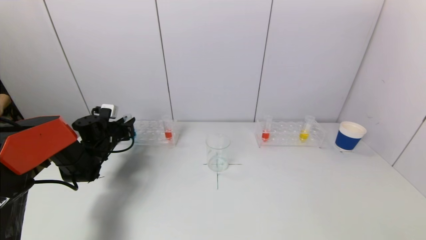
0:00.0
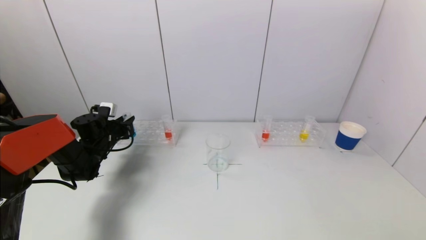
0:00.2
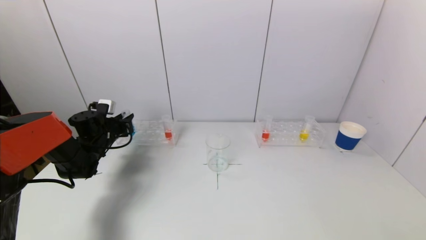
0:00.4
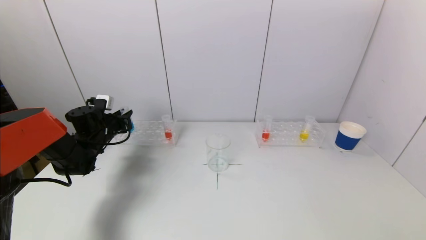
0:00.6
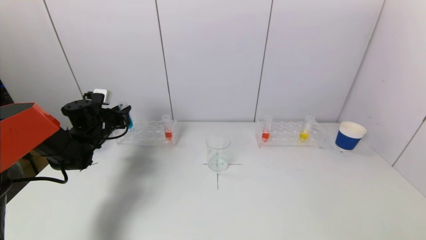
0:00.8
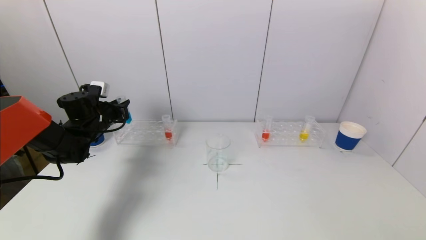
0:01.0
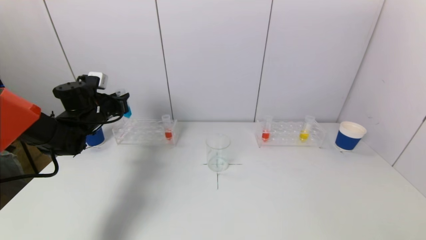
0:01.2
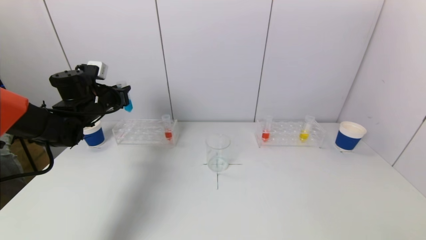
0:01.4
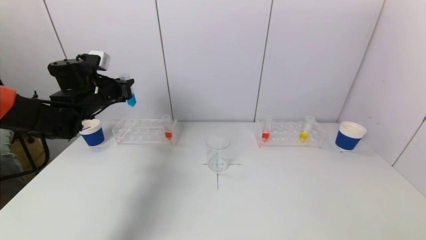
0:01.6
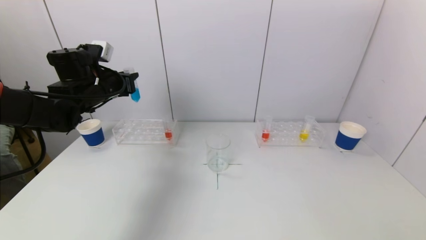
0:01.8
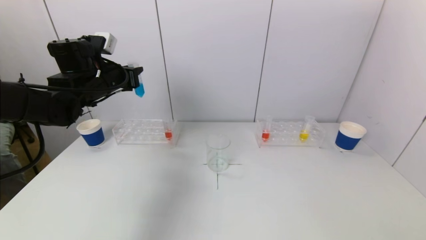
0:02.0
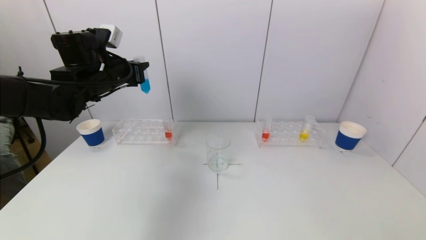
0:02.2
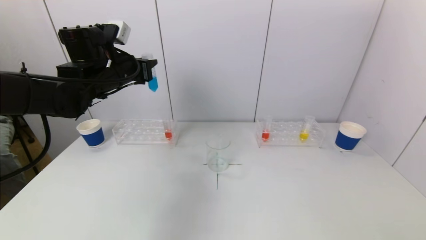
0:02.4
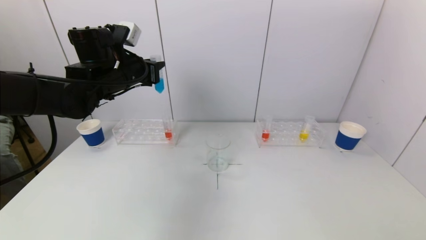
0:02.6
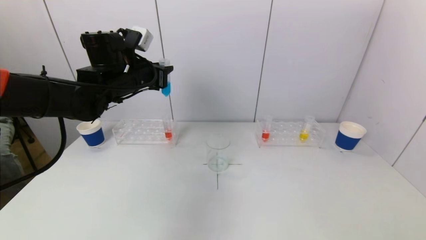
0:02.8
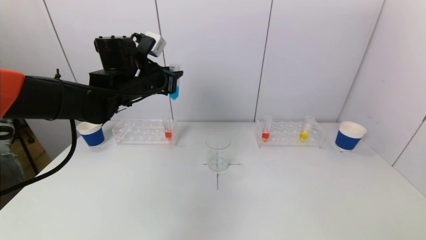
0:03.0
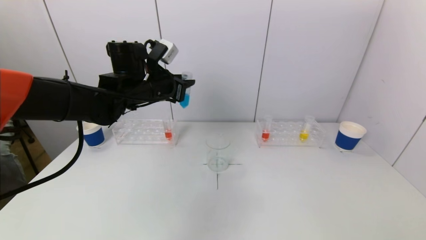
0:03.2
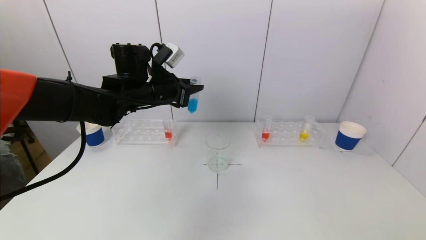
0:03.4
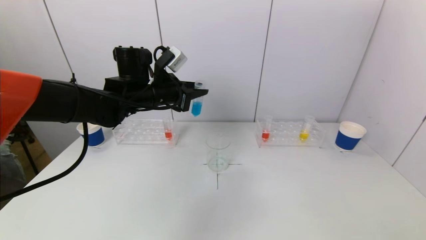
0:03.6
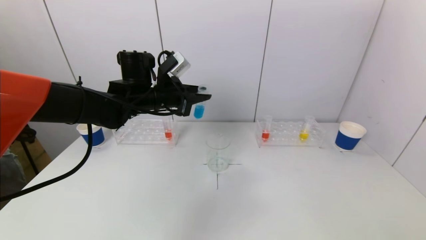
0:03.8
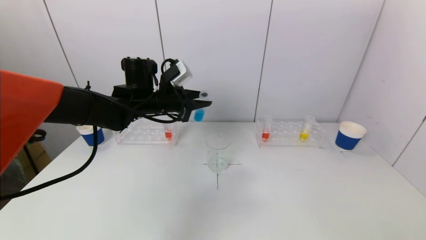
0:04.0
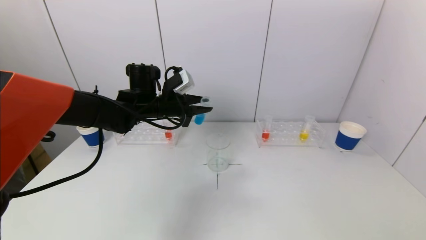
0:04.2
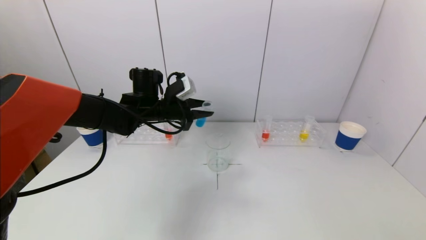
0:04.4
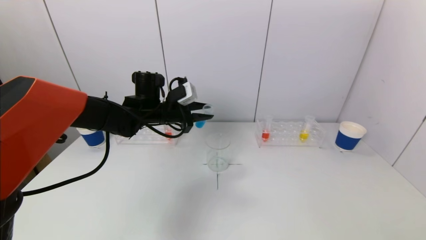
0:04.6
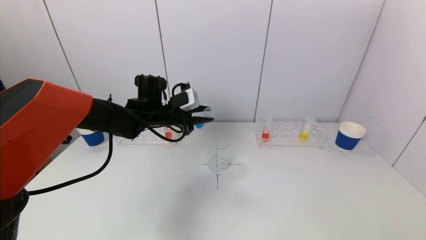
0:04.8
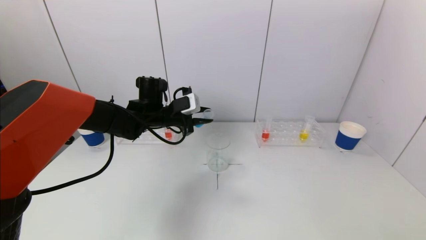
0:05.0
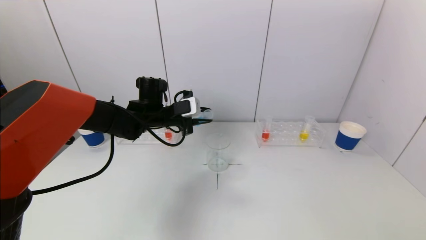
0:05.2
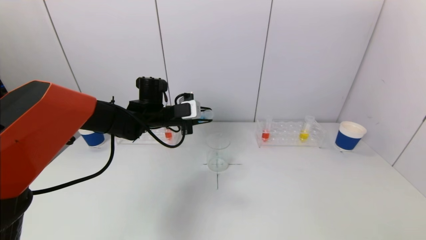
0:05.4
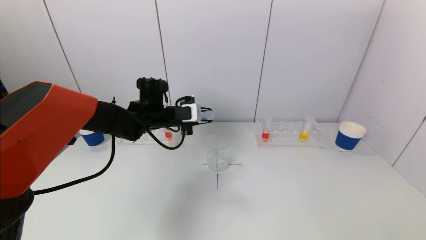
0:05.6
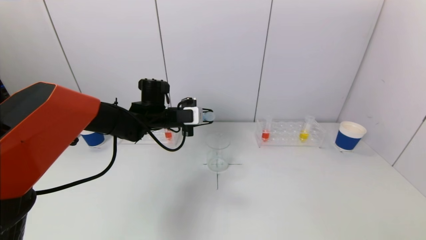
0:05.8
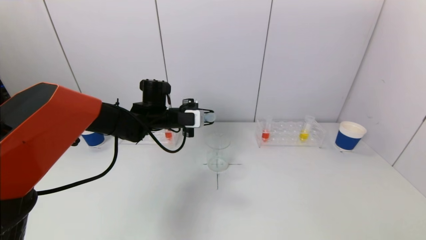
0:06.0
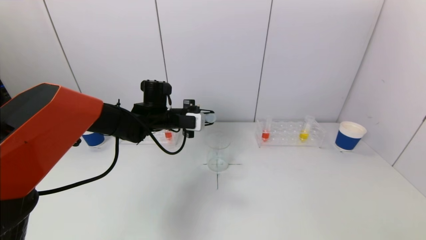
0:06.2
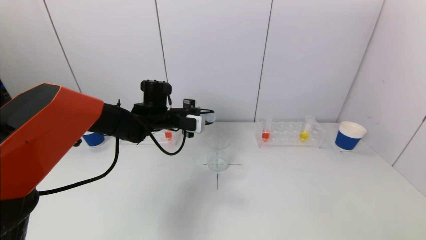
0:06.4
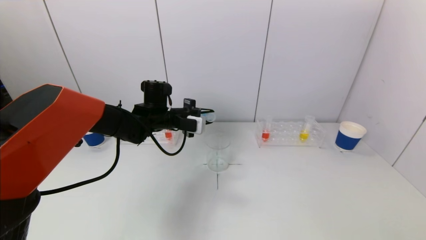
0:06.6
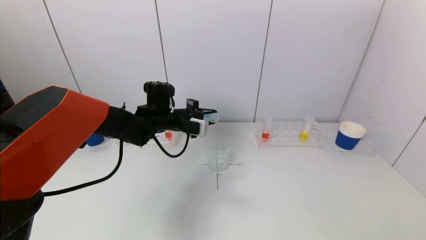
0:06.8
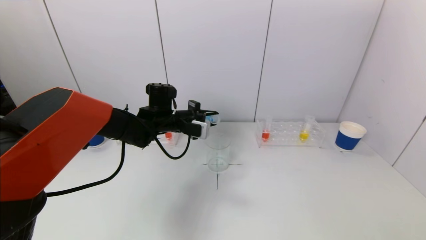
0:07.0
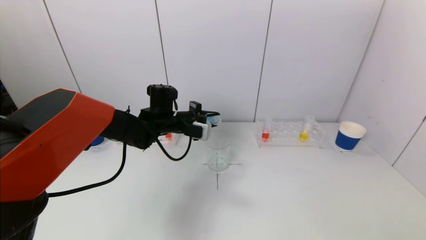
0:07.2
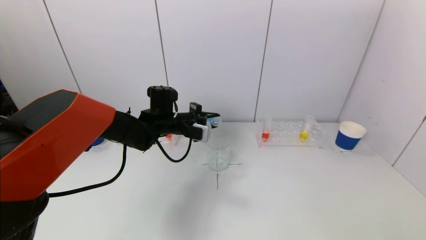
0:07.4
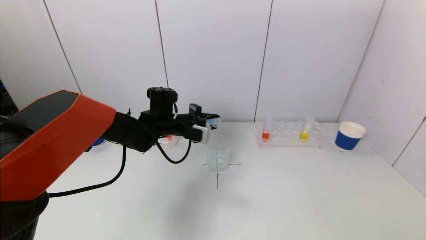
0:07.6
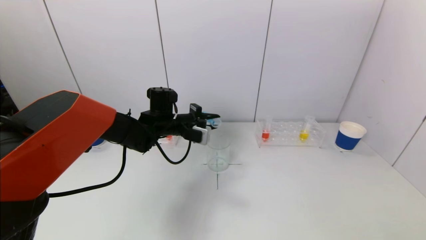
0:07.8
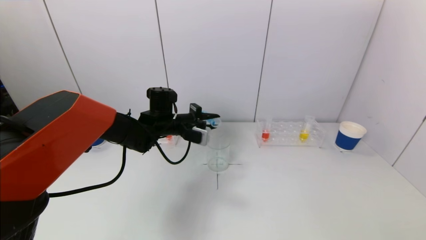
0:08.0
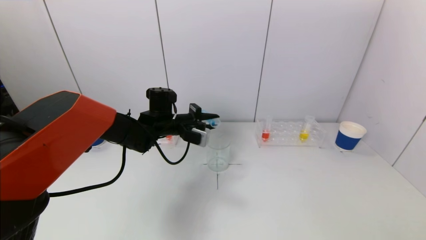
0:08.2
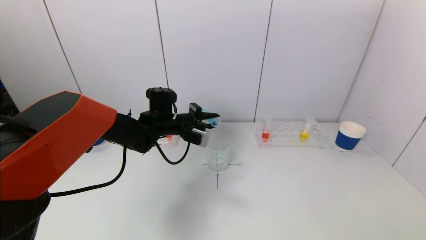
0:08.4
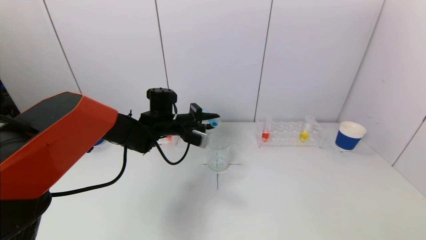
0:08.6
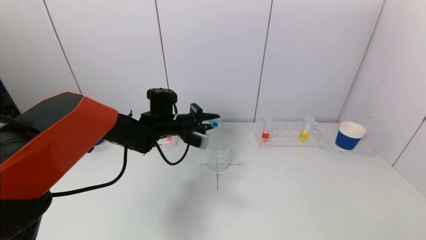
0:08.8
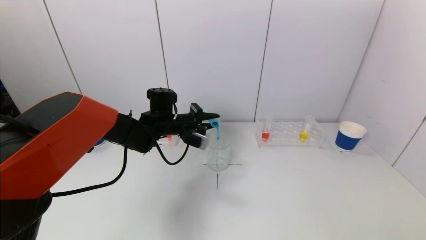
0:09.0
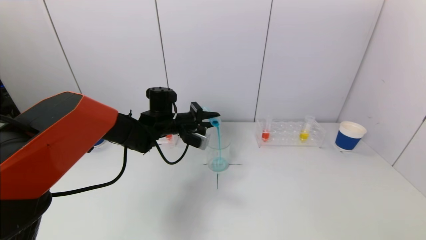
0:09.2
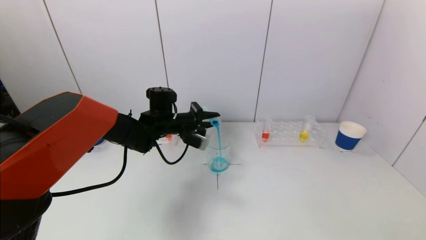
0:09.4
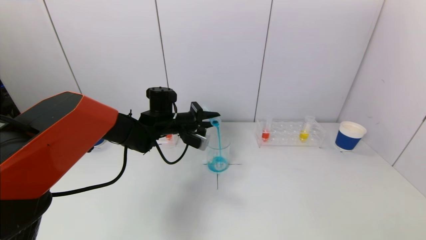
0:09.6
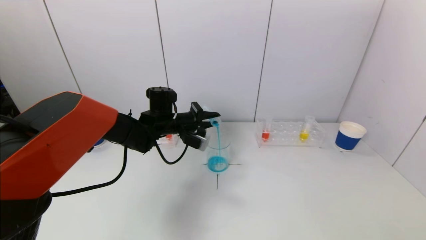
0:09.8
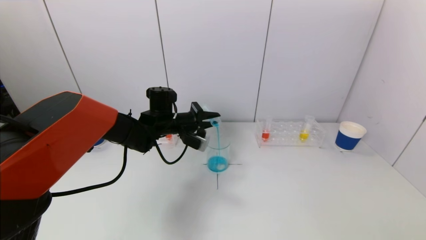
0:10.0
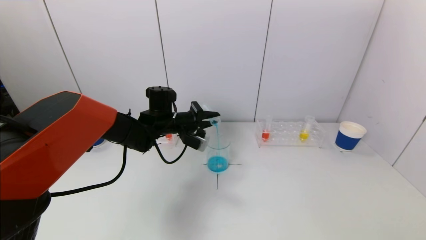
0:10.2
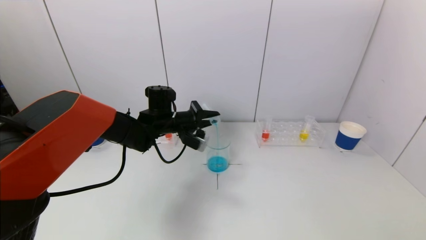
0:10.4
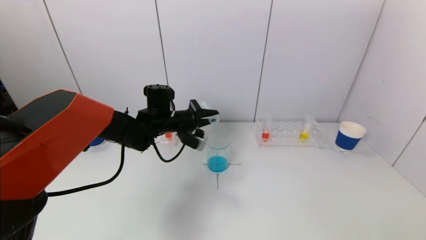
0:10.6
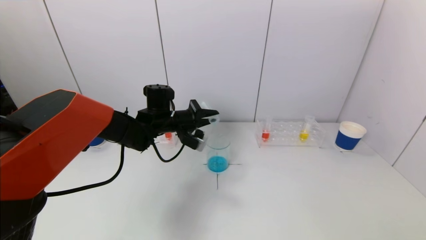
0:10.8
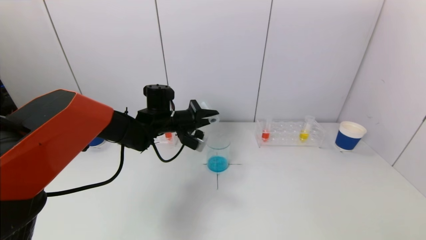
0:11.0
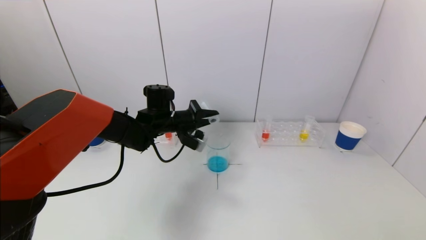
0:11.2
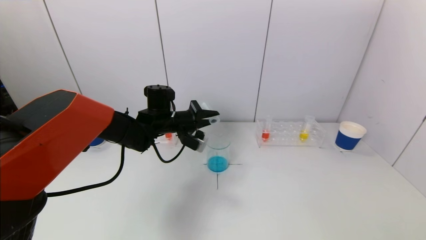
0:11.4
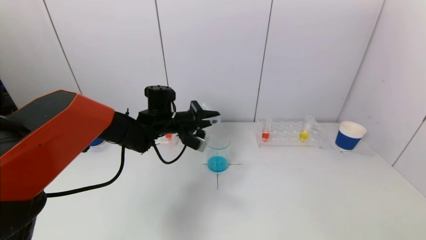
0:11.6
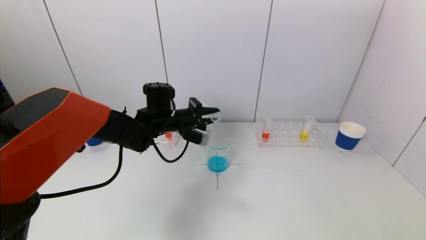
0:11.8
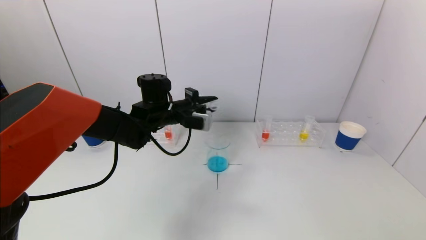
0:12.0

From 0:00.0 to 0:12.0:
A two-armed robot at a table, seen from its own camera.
Task of the whole recording: pick up a test tube with pigment on left test tube rack and a test tube with pigment on right test tube rack by grippers and pour them into the beaker.
Step, from 0:00.0 to 0:11.4: Pour the blue reagent into the graduated cylinder with the left gripper.
From 0:00.0 to 0:01.6: The left gripper heads upward, covering about 15 cm.
From 0:01.6 to 0:03.0: The left gripper is displaced to the right by approximately 10 cm.
From 0:03.0 to 0:04.4: The left gripper heads downward, covering roughly 5 cm.
From 0:06.0 to 0:07.6: The grippers make only small movements.
From 0:07.6 to 0:09.0: The grippers move only a little.
From 0:09.0 to 0:12.0: The grippers stay close to where they were, moving slightly.

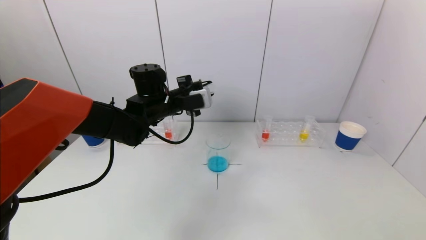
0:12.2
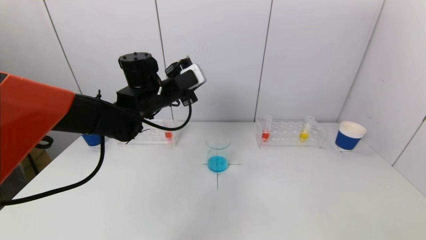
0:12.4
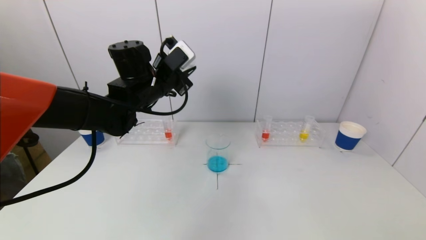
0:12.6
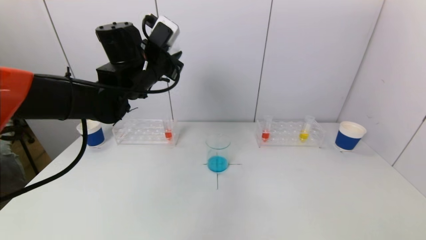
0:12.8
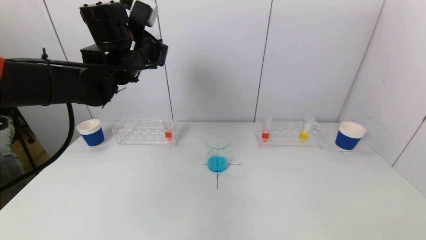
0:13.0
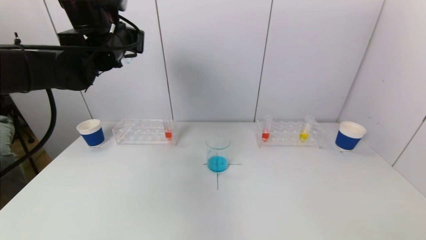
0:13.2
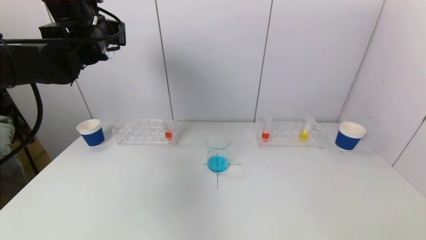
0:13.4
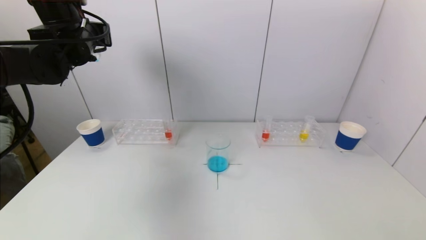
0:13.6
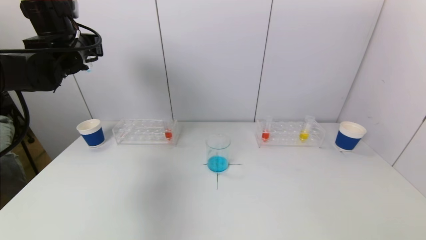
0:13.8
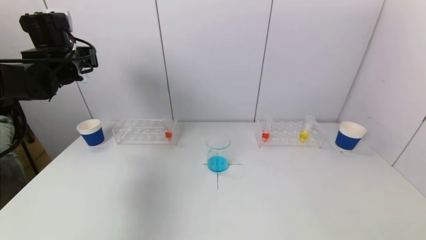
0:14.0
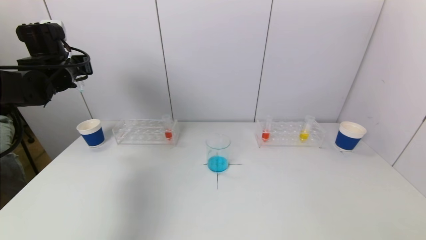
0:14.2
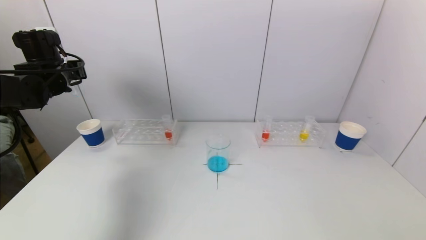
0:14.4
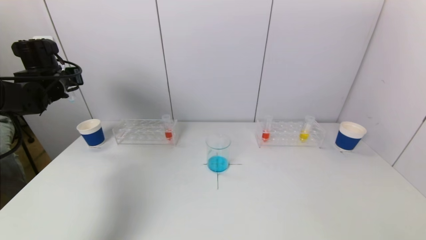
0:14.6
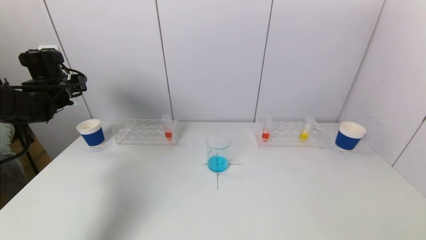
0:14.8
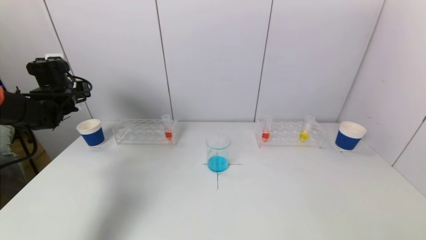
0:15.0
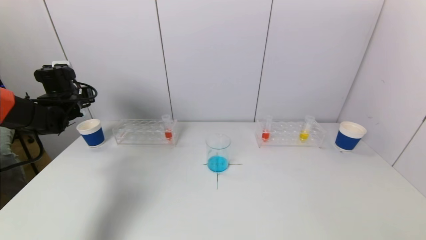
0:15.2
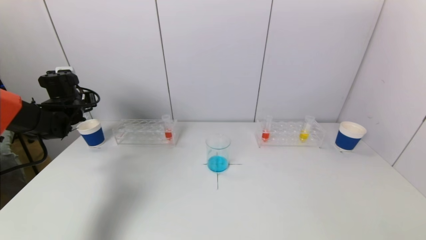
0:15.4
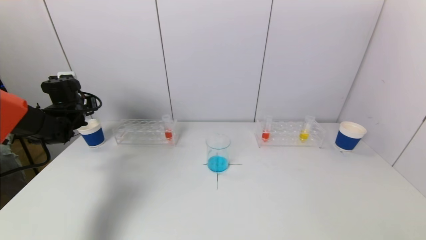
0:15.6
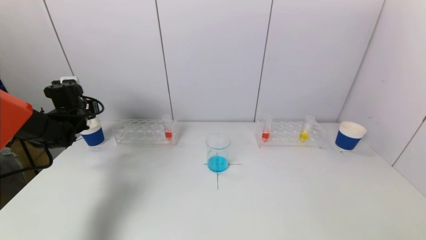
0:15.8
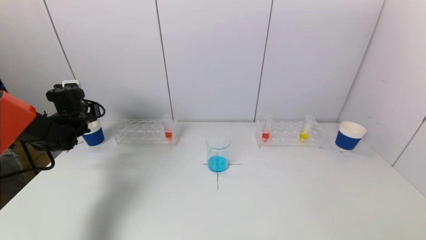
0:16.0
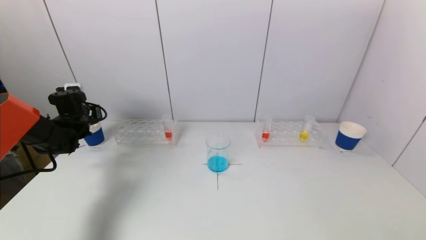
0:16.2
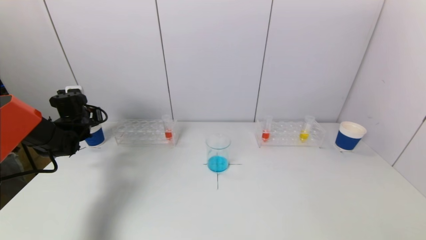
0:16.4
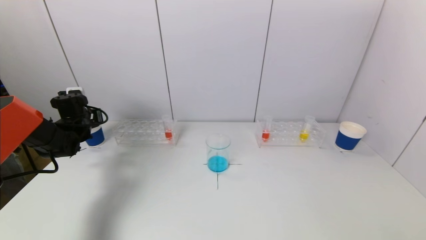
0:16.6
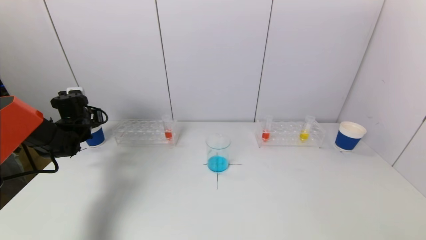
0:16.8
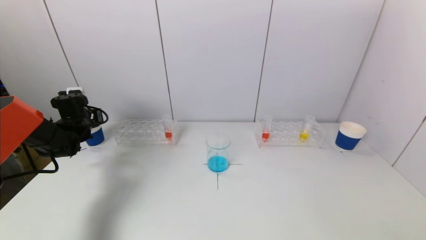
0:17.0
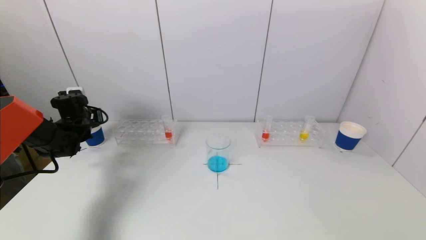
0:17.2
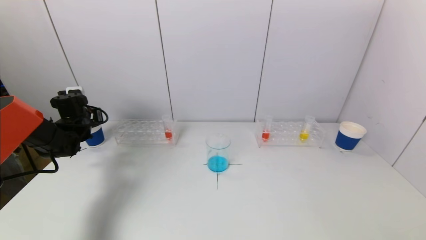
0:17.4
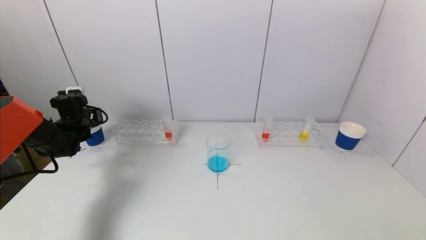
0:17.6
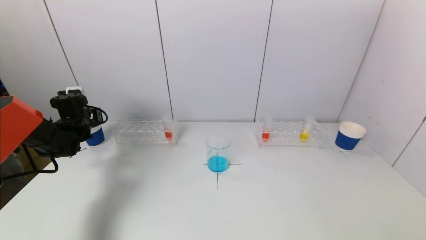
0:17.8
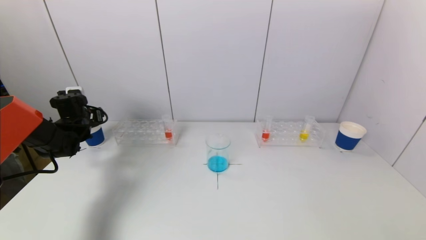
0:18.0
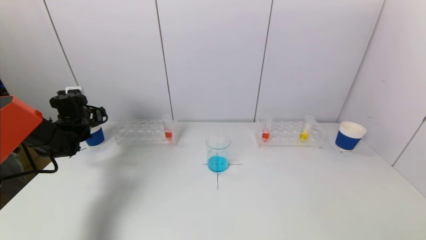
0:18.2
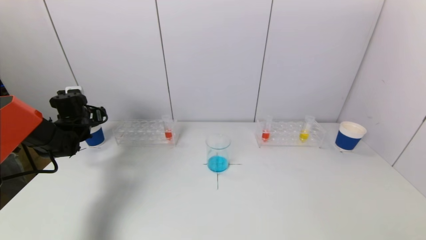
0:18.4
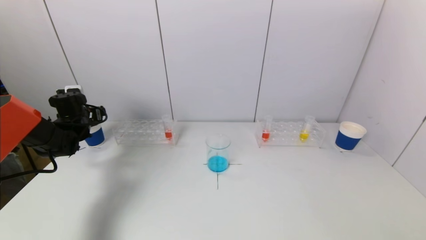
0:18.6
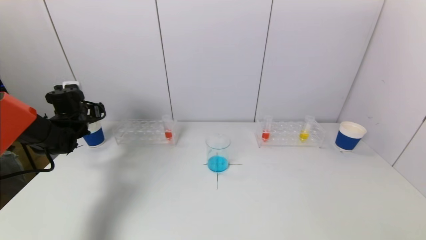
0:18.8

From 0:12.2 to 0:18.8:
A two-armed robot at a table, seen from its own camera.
Task of the whole recording: pick up a test tube with pigment on left test tube rack and a test tube with pigment on right test tube rack by grippers and pour them into the beaker.
Step, from 0:12.2 to 0:18.4: Place the test tube into the paper cup with the left gripper.
From 0:12.2 to 0:13.8: The left gripper is displaced to the left and upward by approximately 20 cm.
From 0:13.8 to 0:15.4: The left gripper goes roughly 15 cm downward and to the left.
From 0:15.4 to 0:17.2: The left gripper goes approximately 5 cm downward.
From 0:17.2 to 0:18.8: The left gripper opens.
